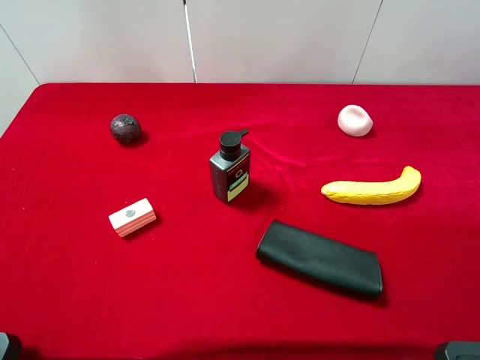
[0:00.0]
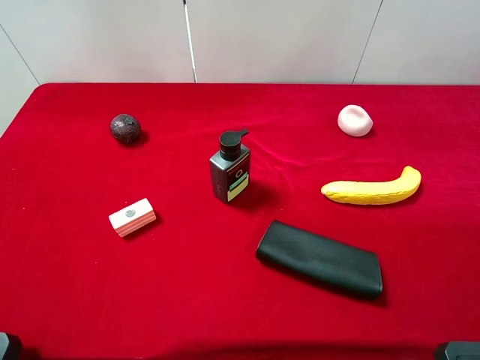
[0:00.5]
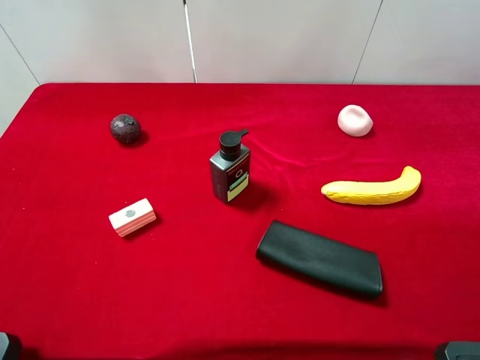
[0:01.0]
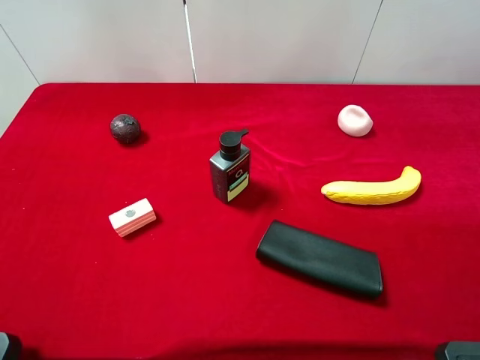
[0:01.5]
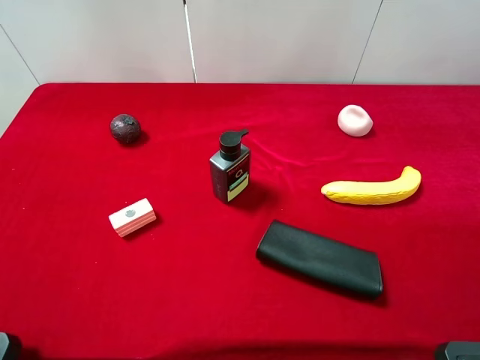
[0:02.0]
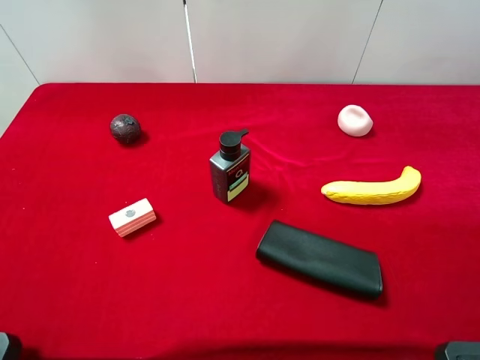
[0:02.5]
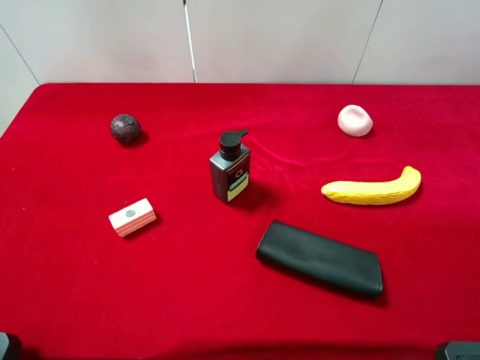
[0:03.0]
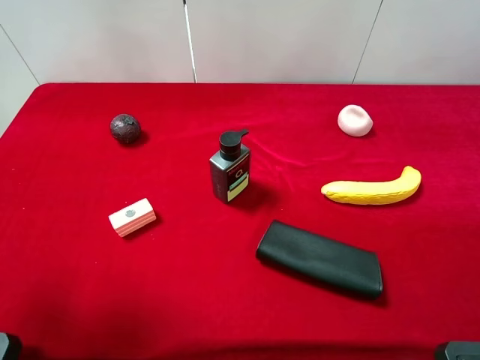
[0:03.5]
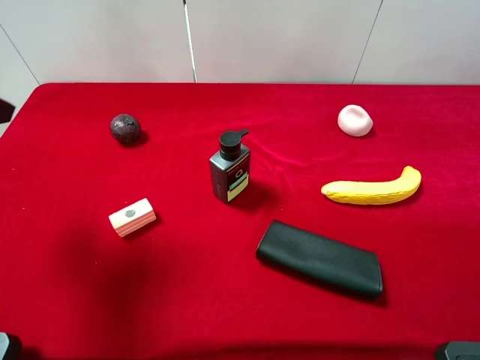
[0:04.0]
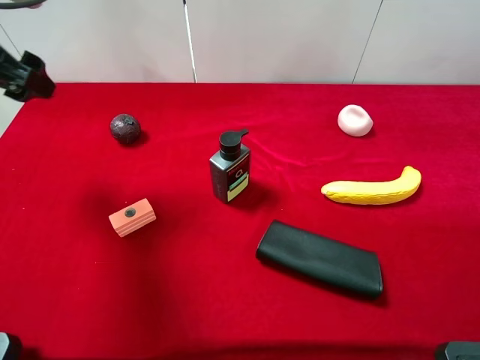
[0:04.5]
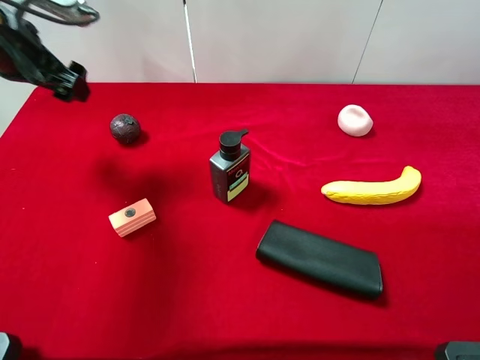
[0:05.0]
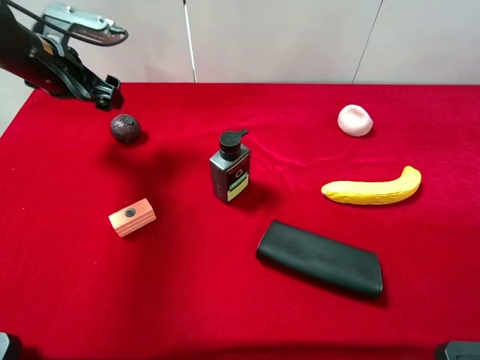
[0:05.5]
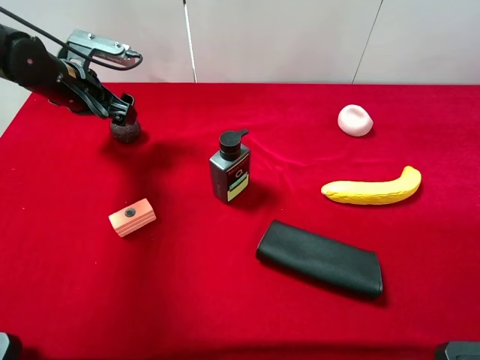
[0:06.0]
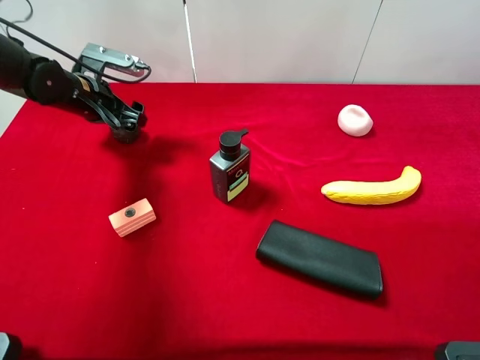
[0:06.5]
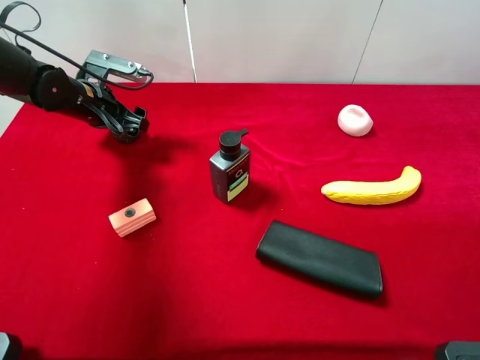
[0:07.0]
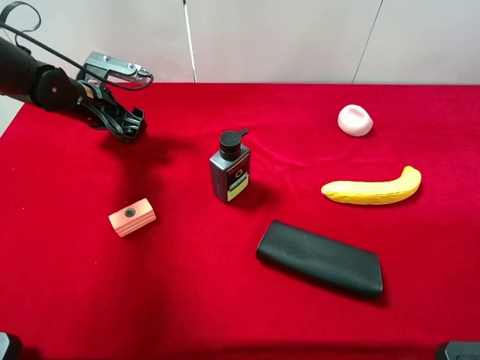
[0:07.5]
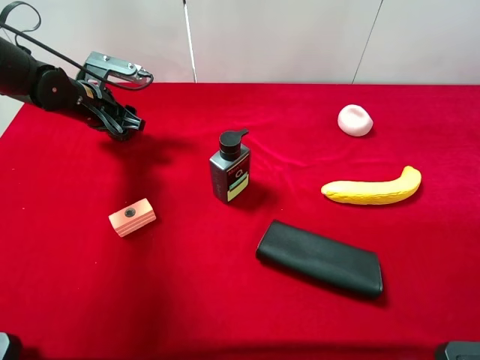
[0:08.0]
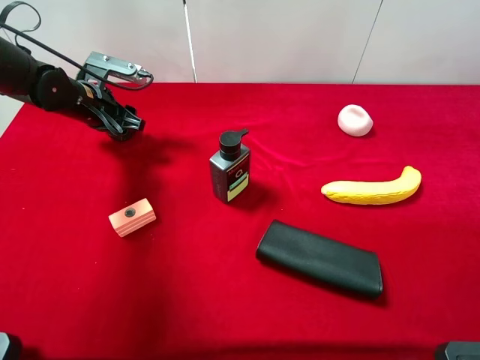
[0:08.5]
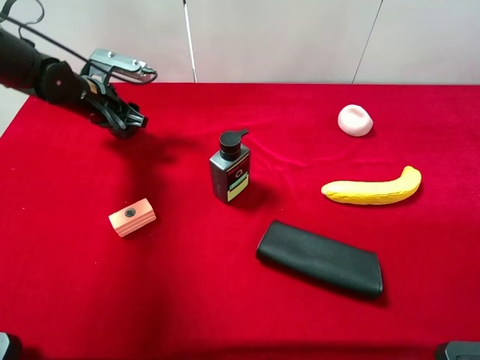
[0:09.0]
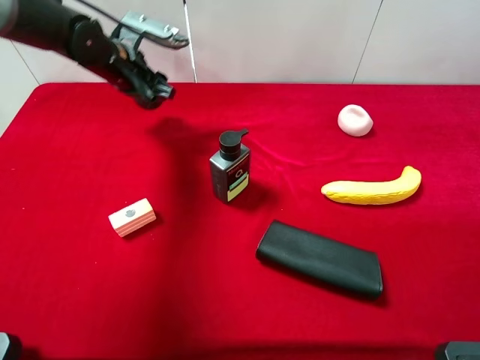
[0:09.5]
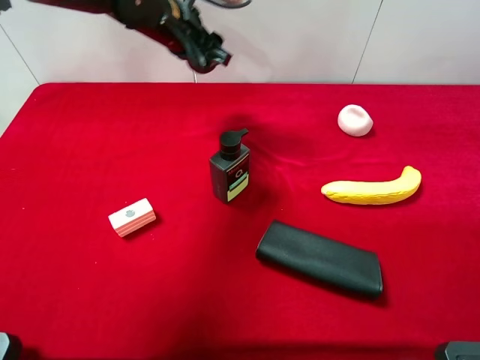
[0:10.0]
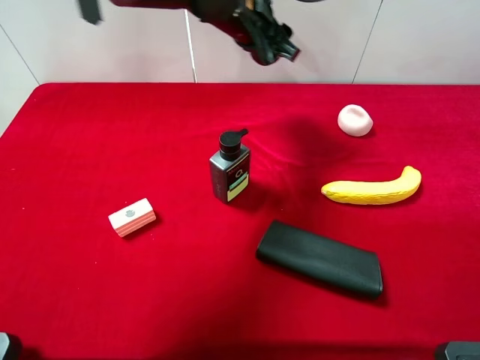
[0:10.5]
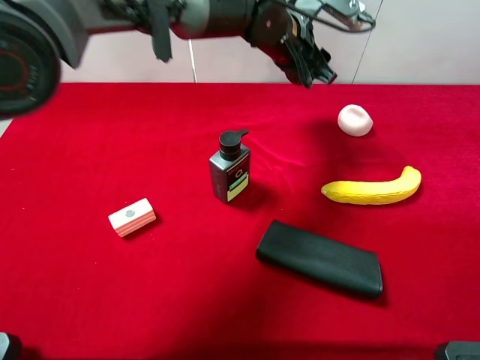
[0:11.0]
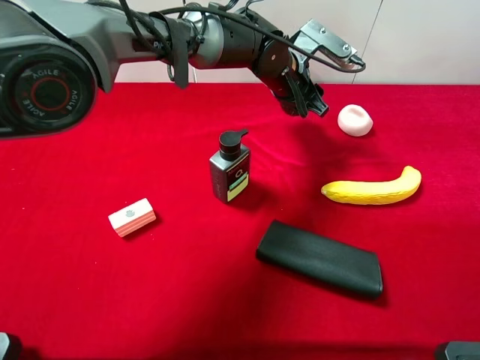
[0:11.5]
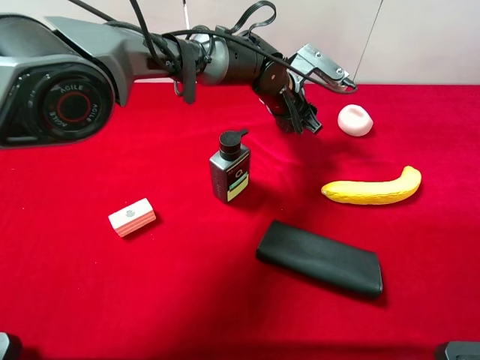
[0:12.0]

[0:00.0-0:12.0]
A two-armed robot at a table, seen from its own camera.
Task of the whole recording: the gripper move the object.
Step, 0:00.0 to 0:08.0: Grasp the mangosteen with the left gripper.
0:02.0 to 0:04.0: The left gripper goes roughly 15 cm forward.
0:04.0 to 0:06.0: The left gripper shifts about 25 cm forward and downward.
0:06.0 to 0:08.0: The left gripper closes up.
0:08.0 to 0:10.0: The left gripper is displaced to the right and upward by some 15 cm.
0:10.0 to 0:12.0: The left gripper shifts about 20 cm to the right and downward.

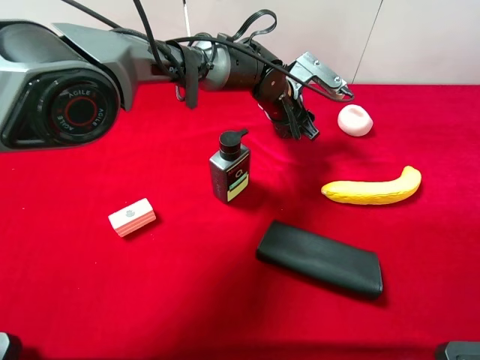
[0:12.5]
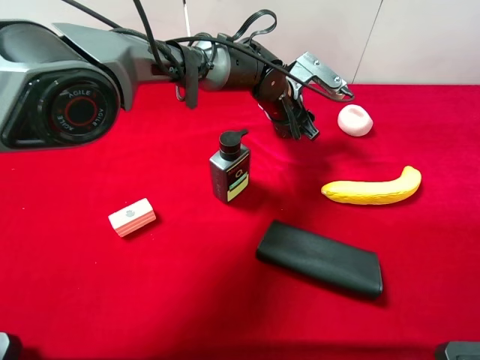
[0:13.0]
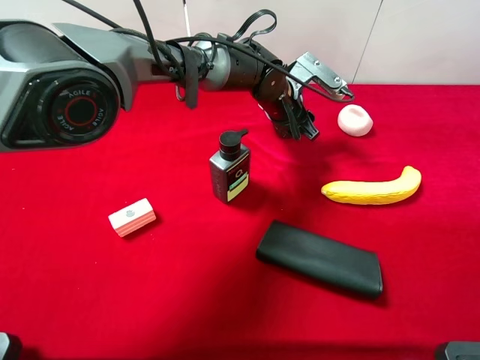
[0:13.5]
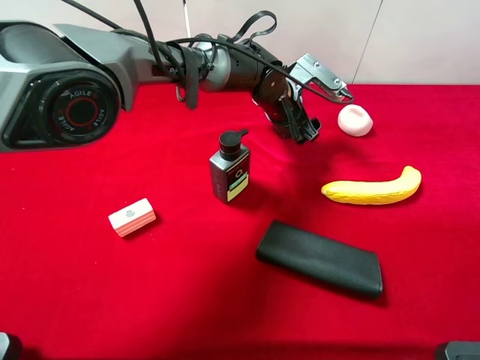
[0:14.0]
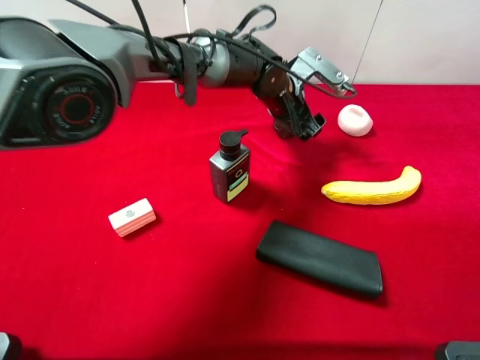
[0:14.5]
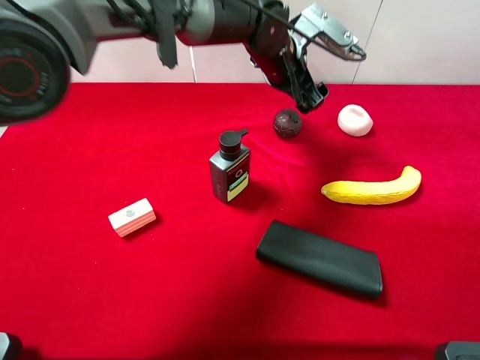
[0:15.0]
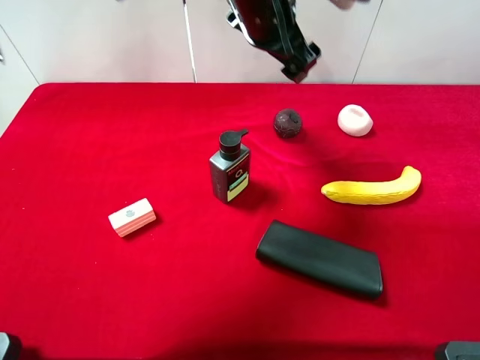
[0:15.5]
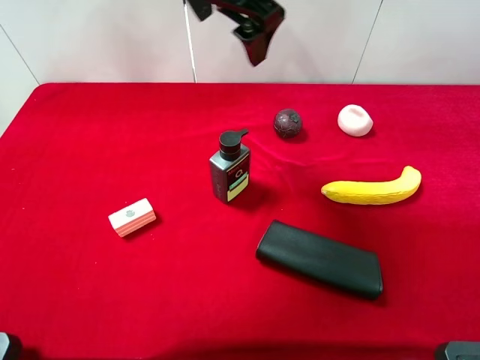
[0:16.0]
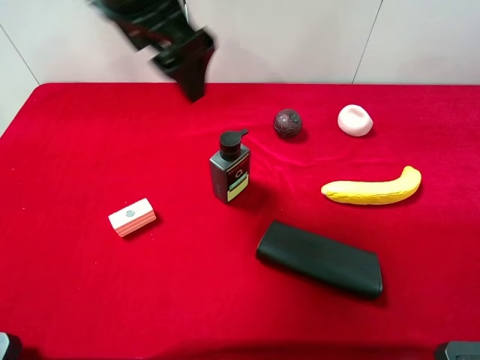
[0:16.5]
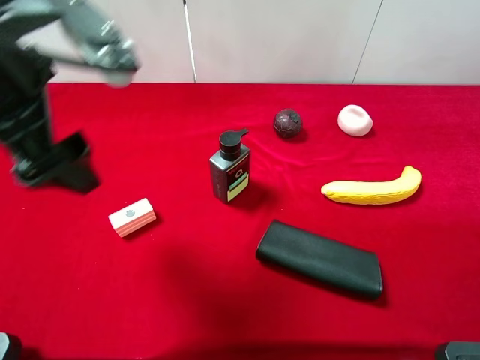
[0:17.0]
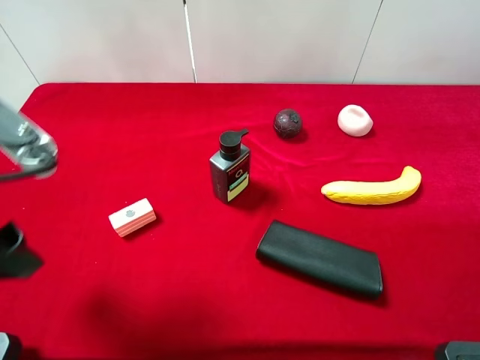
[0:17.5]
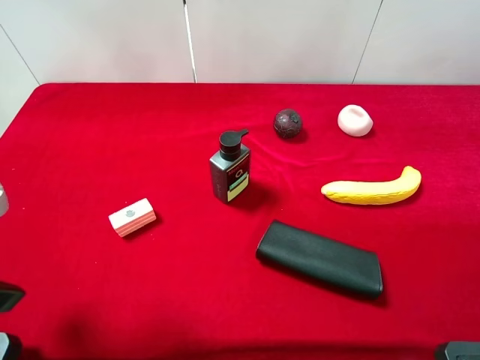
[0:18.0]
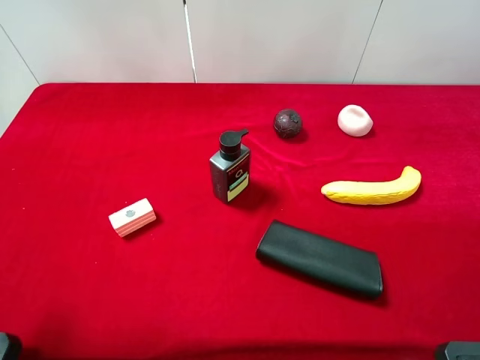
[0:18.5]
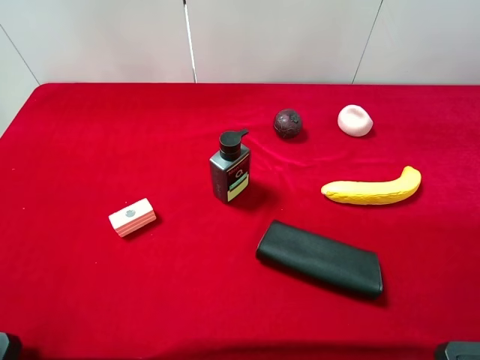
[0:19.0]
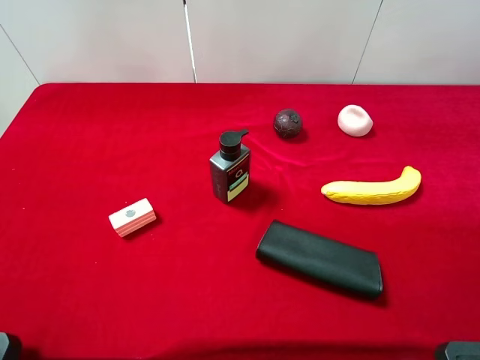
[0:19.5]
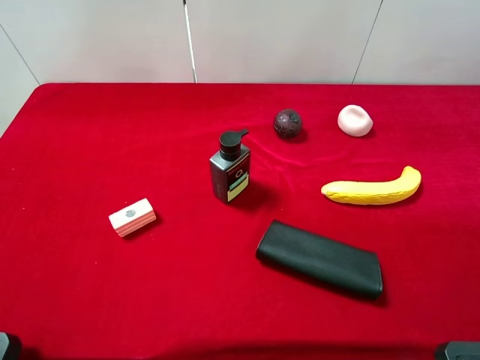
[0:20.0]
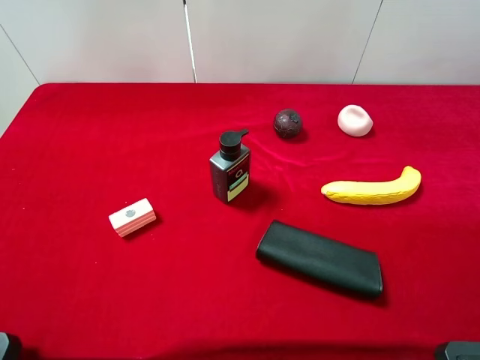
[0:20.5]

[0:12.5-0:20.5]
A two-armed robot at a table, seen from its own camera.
Task of the whole recording: the gripper move the object.
Step, 0:12.5 to 0:15.0: Place the mangosteen on the table with the left gripper.
0:12.5 to 0:14.5: The left gripper opens up.
0:14.5 to 0:16.5: The left gripper travels upward, to the left and backward by approximately 30 cm.
0:16.5 to 0:18.5: The left gripper heads to the left and backward, covering some 30 cm.

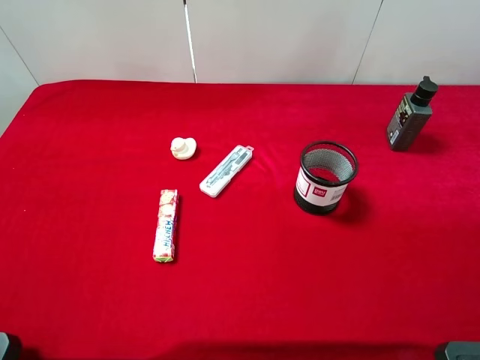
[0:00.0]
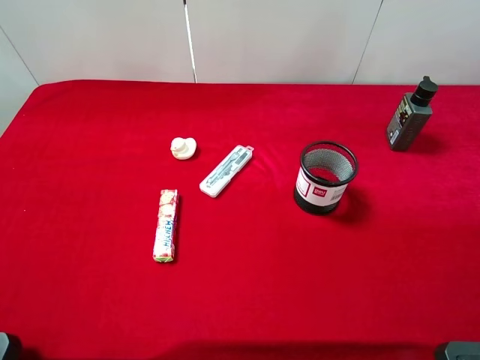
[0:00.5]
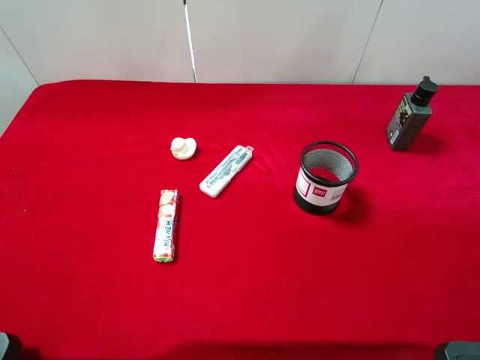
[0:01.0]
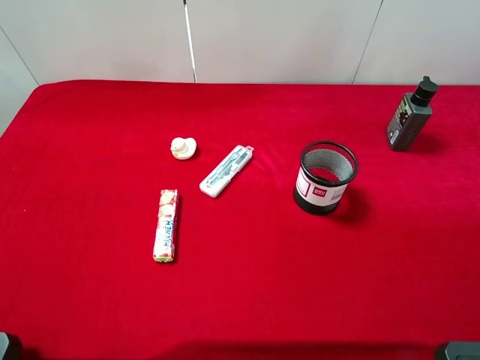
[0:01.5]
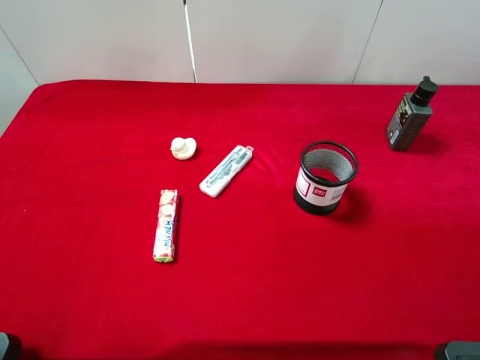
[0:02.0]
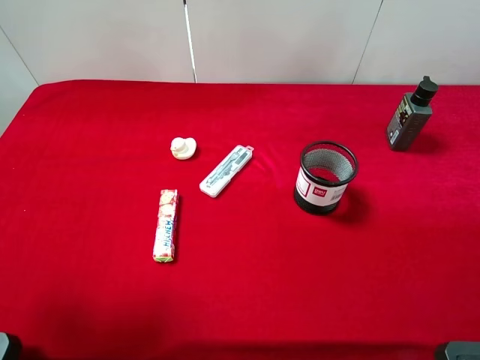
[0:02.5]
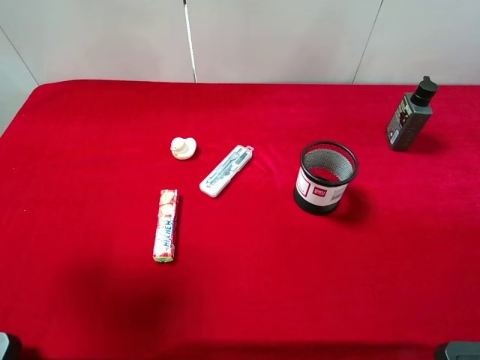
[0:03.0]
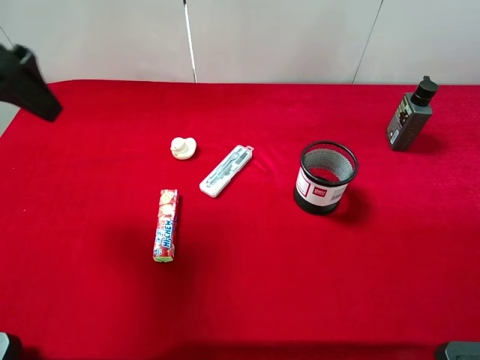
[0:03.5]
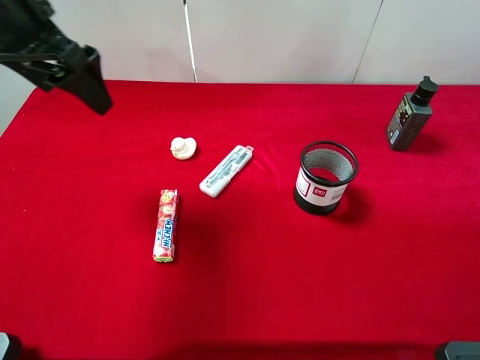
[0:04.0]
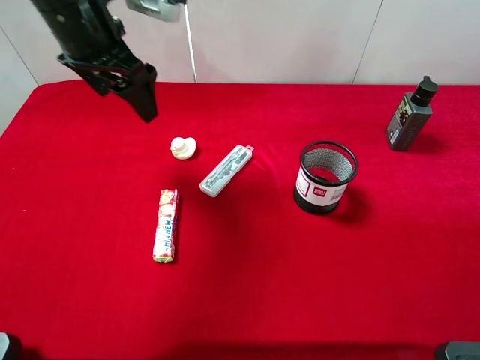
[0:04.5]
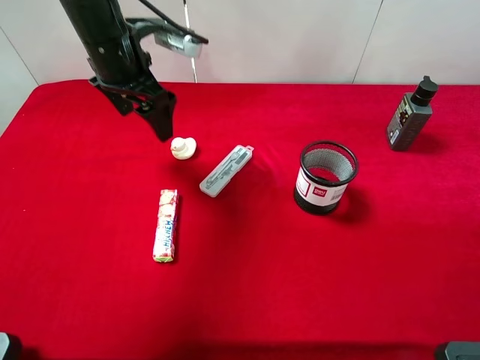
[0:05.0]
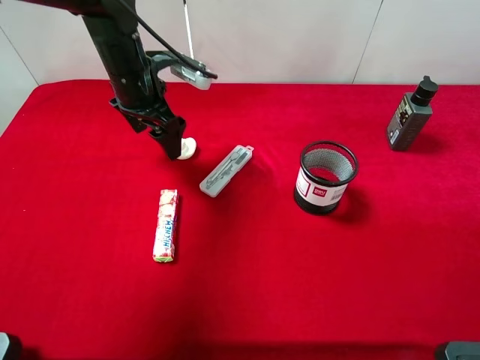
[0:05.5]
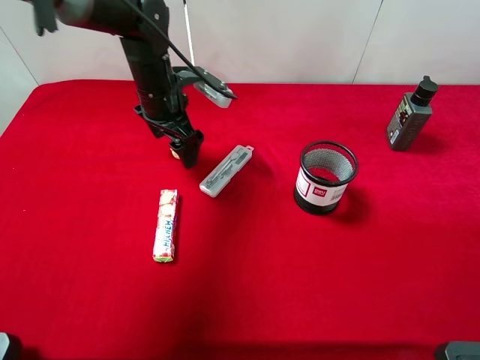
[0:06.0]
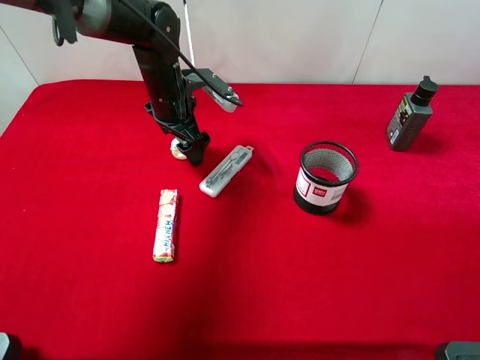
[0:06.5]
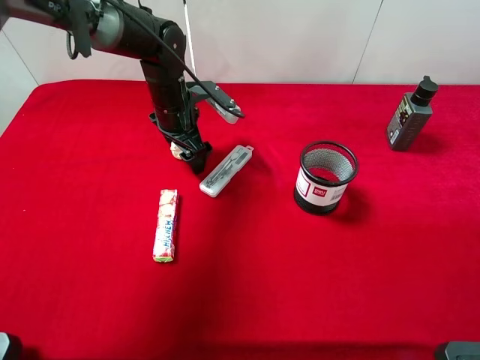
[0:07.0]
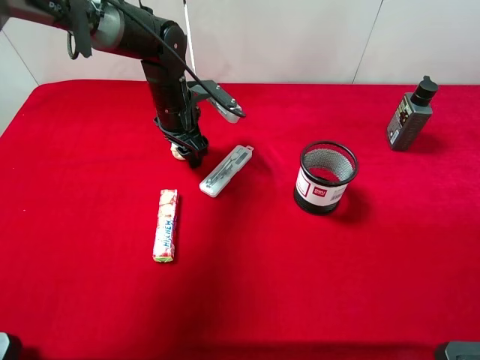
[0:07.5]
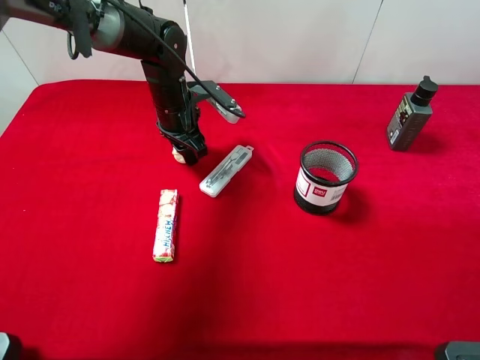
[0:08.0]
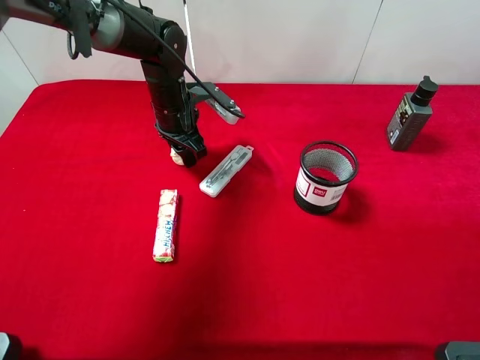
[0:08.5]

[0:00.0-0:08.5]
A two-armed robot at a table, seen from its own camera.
Task of the whole recording: the gripper move the object.
Step, 0:00.0 to 0:08.0: Grasp the white duck with the left gripper.
0:02.0 to 0:04.0: The left gripper shifts about 25 cm forward.
0:04.0 to 0:06.5: The left gripper moves downward, to the right and forward, roughly 25 cm.
0:06.5 to 0:08.5: The left gripper closes.
